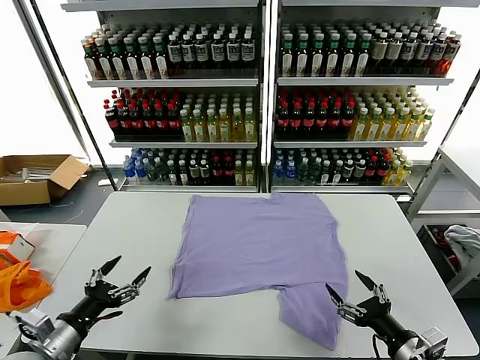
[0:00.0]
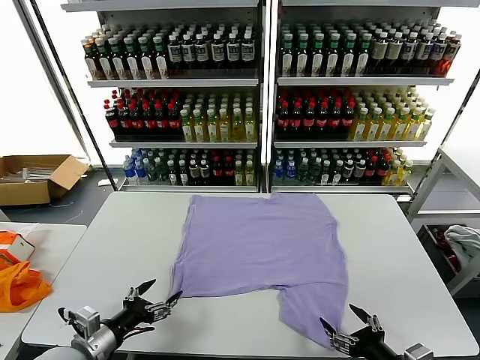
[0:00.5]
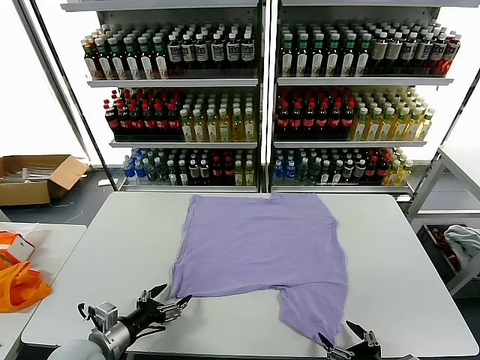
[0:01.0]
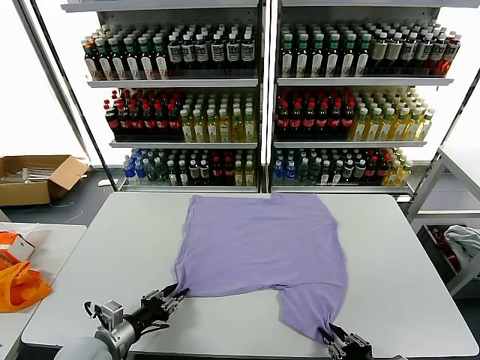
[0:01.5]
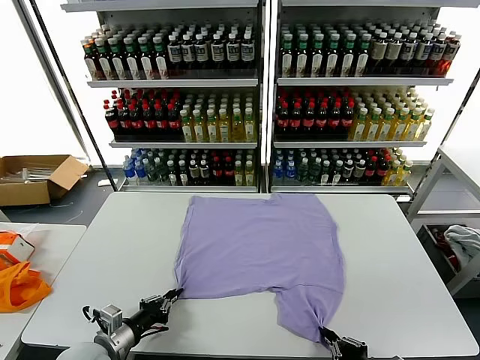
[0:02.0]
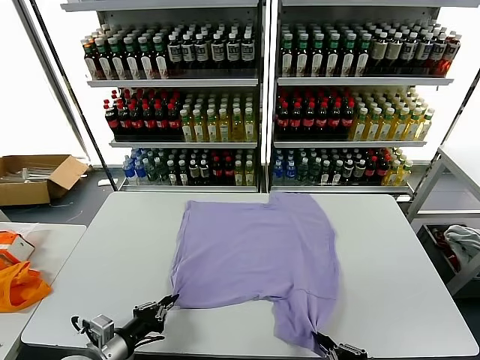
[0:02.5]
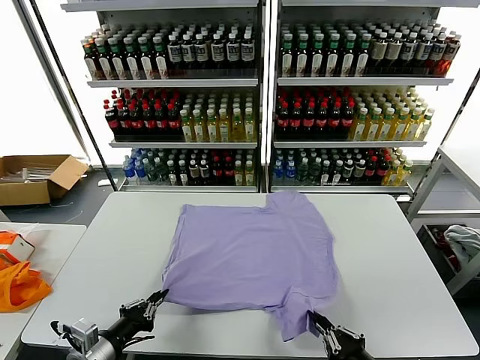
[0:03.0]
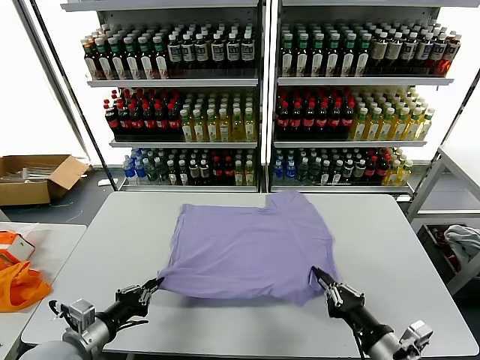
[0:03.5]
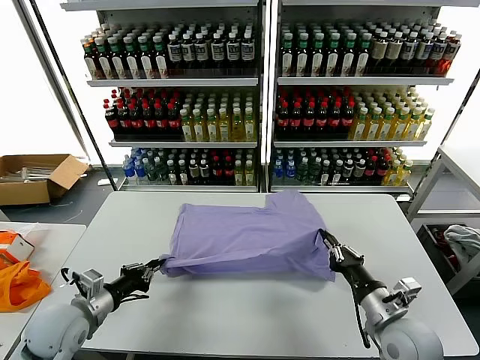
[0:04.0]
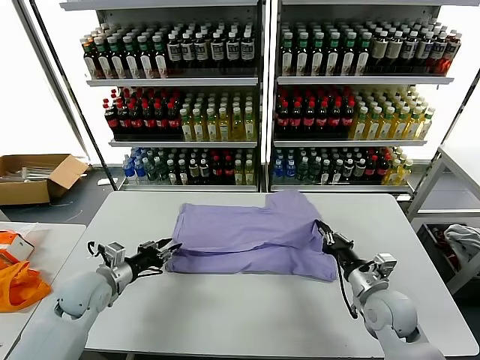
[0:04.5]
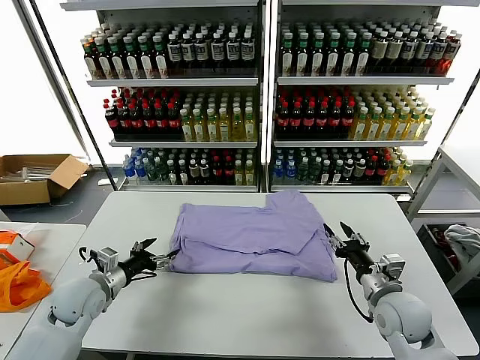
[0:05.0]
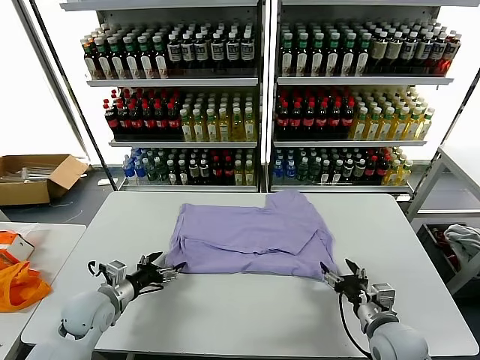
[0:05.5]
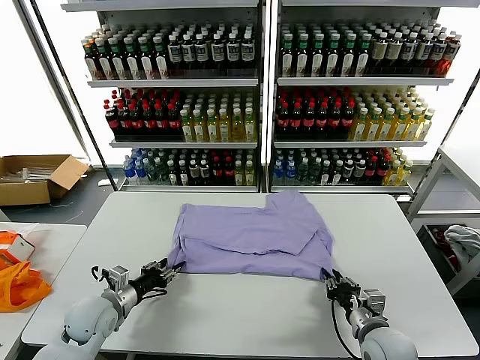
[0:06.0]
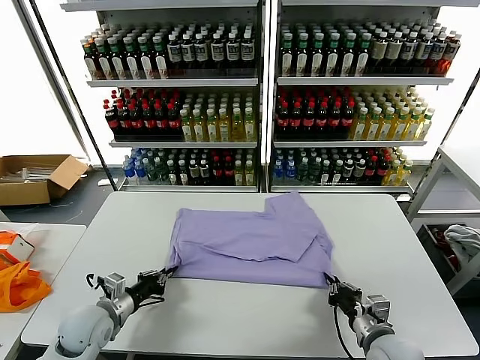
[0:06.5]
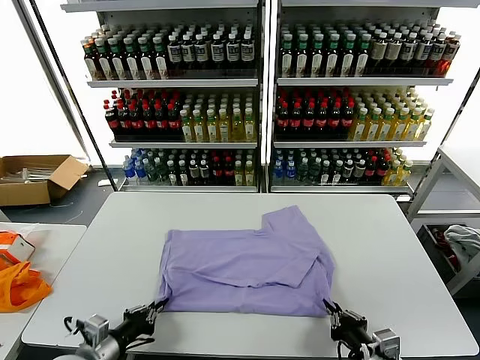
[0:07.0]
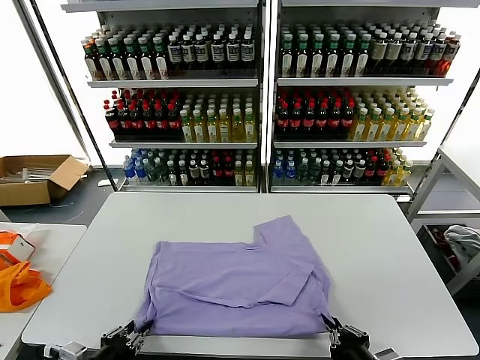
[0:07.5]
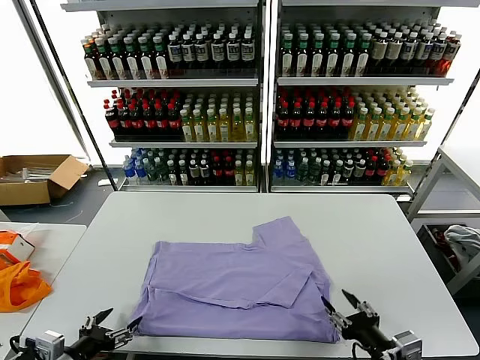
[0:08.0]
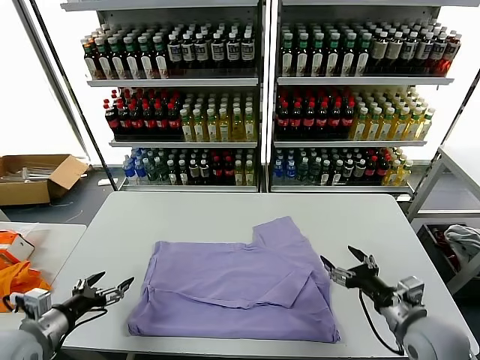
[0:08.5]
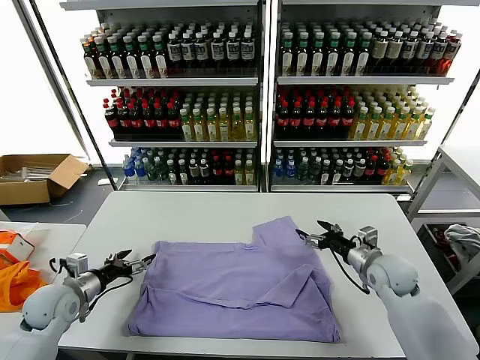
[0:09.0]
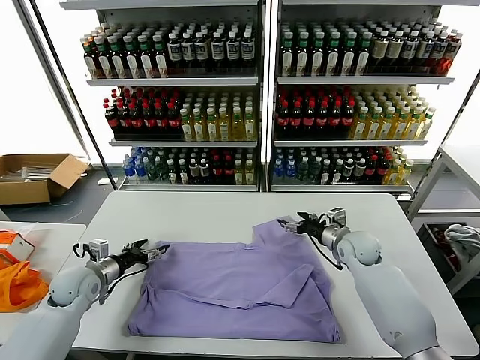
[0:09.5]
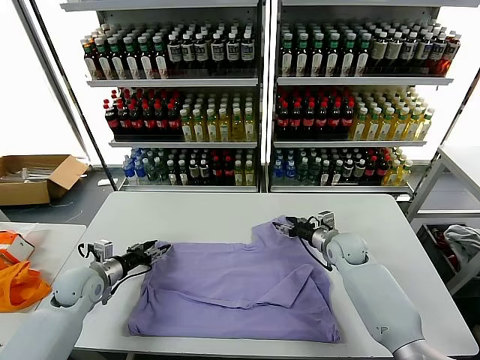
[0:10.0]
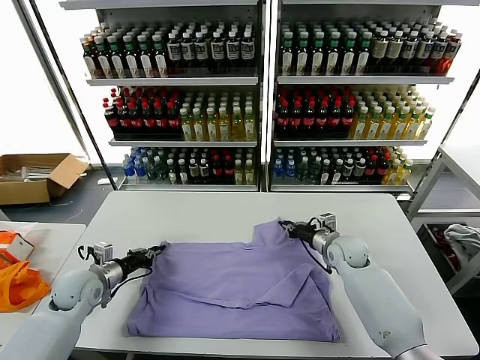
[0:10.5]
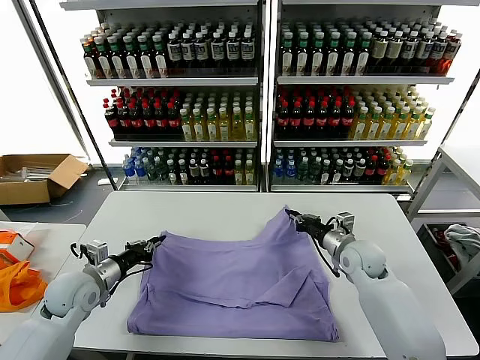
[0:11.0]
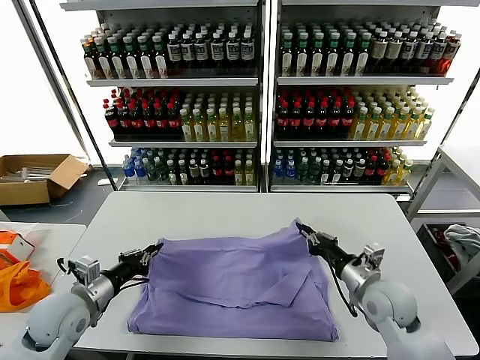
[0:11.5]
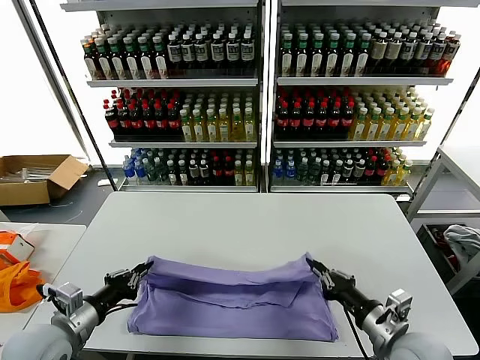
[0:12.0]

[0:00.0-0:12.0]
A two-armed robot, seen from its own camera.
Task of the whole recording: fold and organize the clothes.
Step, 0:00.0 to 0:01.5: use both grippers simultaneously to clamp the lower edge of the clothing fabric.
Step, 0:02.0 to 0:04.5: use both grippers to drag the lower edge of the fabric forward and fold it over the upper edge.
Step, 0:05.0 to 0:08.0: Drag the clothes downward with both gripper.
Step, 0:08.5 to 0:10.5: use both grippers simultaneously to clamp the upper edge of the clothing fabric.
0:02.0 to 0:04.0: The right gripper goes roughly 15 cm forward. Meanwhile the left gripper shifts about 10 cm upward and forward.
0:04.0 to 0:06.0: Both grippers move downward, approximately 5 cm. The right gripper opens and closes again. The left gripper opens.
0:06.0 to 0:08.0: The right gripper heads backward and upward, covering approximately 10 cm, and opens its fingers. The left gripper goes roughly 20 cm backward and upward, and opens up.
0:08.0 to 0:10.0: The two grippers go approximately 30 cm forward. The left gripper closes up.
0:10.0 to 0:12.0: The left gripper goes approximately 15 cm backward and upward, and closes up; the right gripper is displaced backward by about 30 cm, and closes.

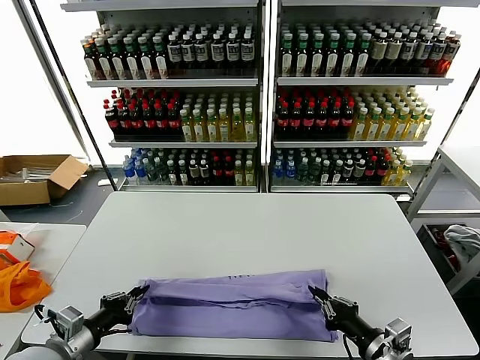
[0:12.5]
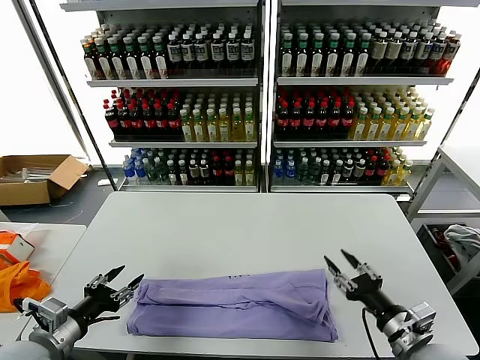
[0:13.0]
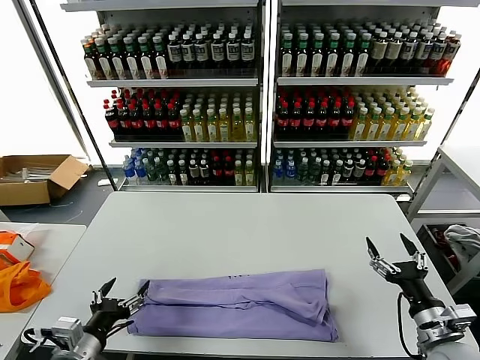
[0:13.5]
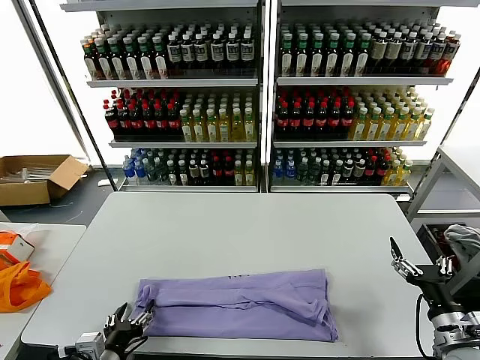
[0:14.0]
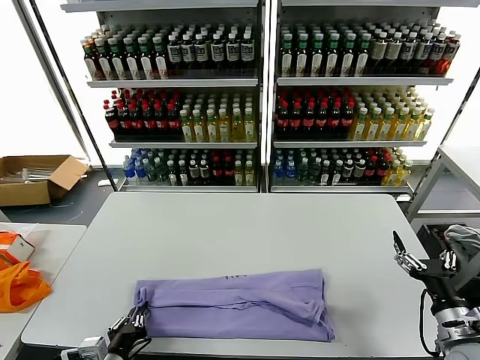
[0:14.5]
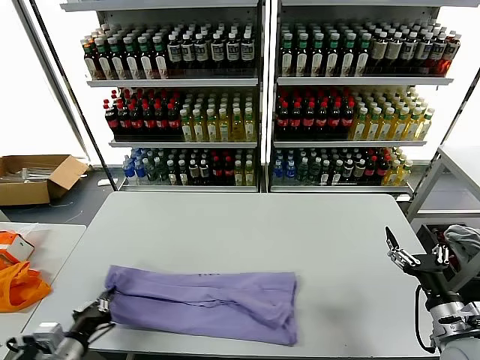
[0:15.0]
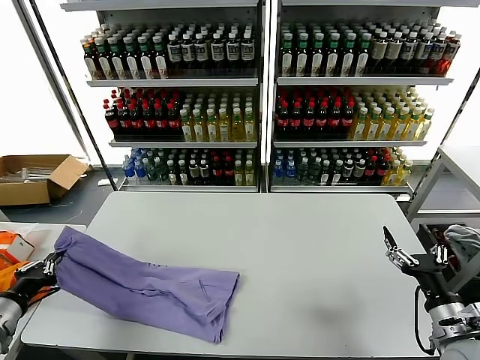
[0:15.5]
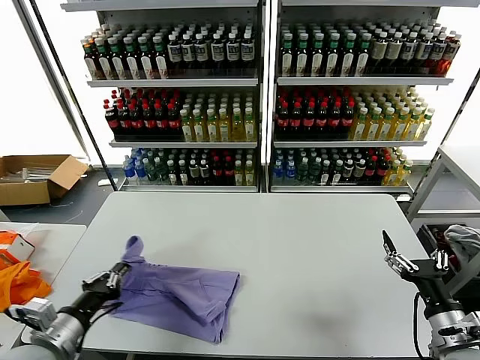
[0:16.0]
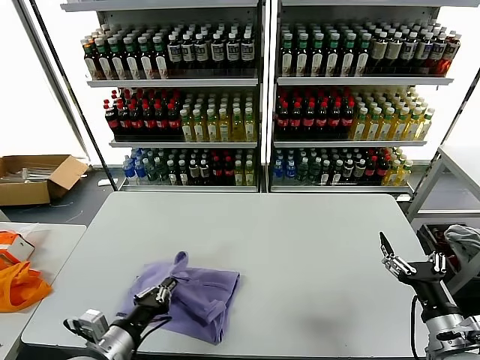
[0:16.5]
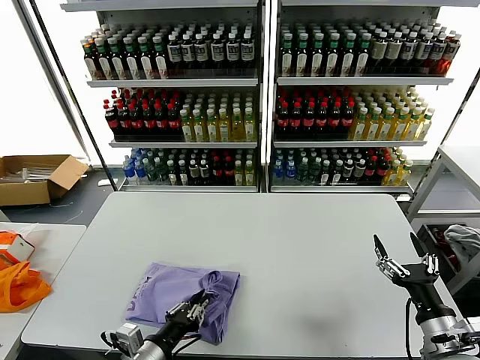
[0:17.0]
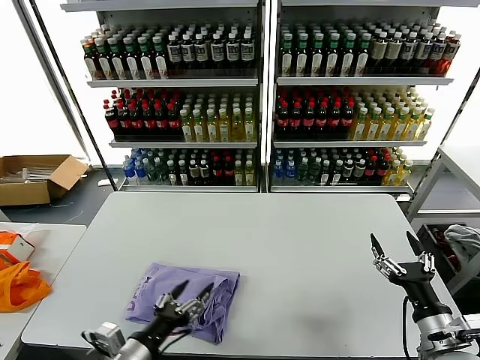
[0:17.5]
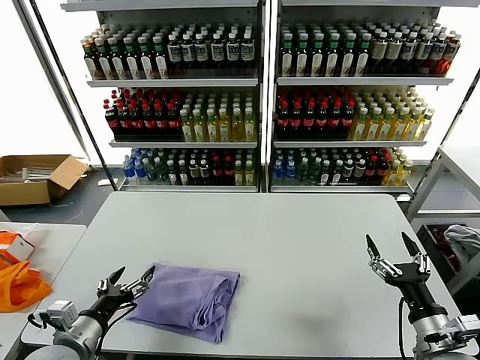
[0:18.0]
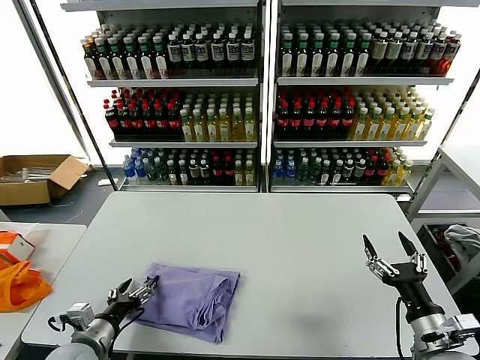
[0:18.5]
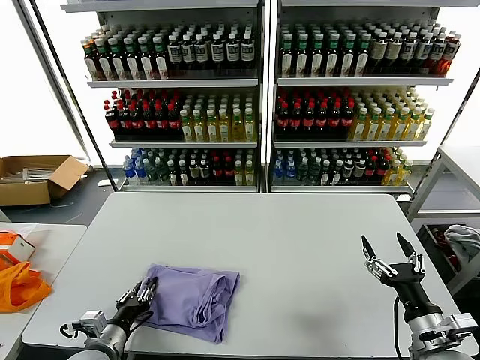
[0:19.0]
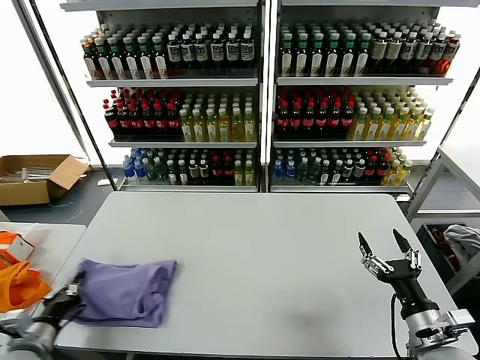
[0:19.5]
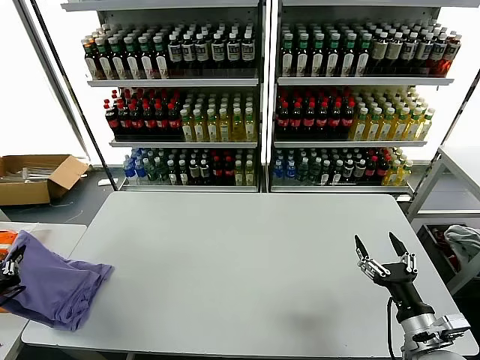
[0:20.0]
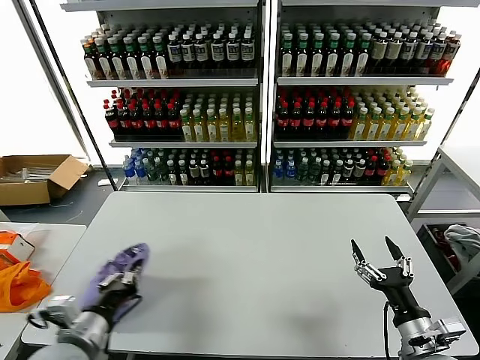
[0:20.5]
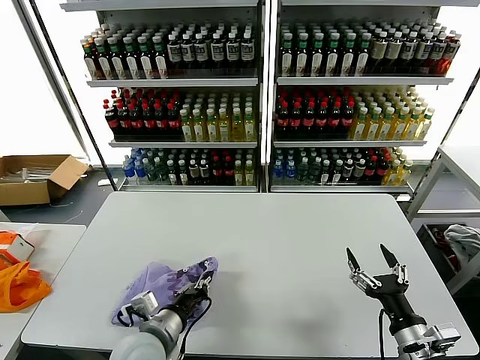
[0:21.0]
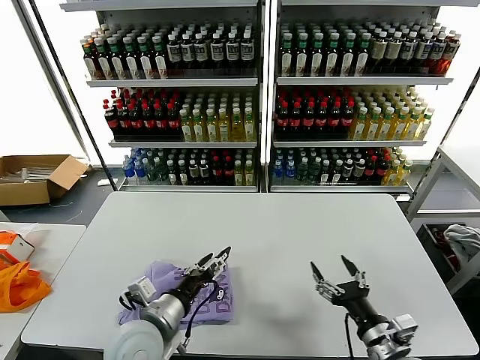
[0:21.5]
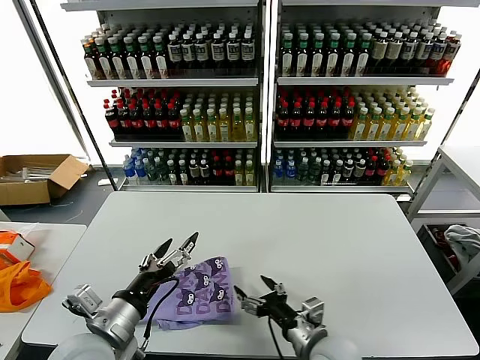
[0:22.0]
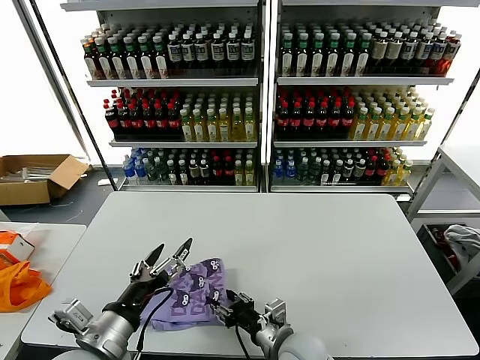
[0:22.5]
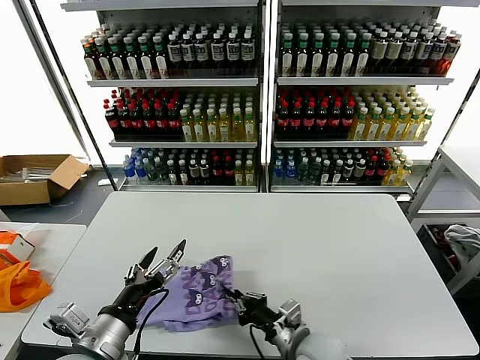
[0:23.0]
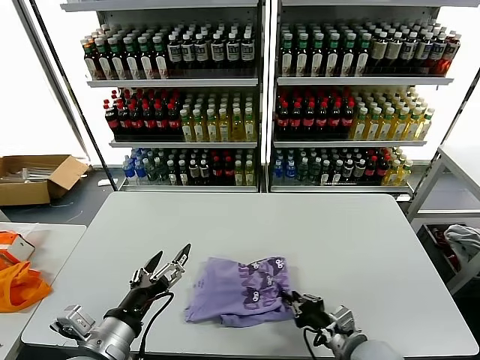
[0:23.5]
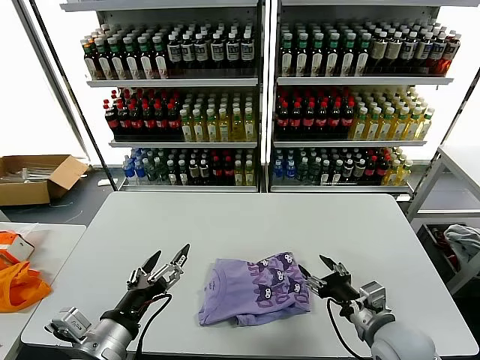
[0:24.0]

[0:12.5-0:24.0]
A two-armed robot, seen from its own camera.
Task of the whole recording: fold and organize the clothes.
Step, 0:13.0 to 0:14.5: use the left gripper to clamp the left edge of the fabric.
Step, 0:15.0 to 0:17.0: use the left gripper to drag the left edge of the fabric to the left and folds it over the right edge.
Step, 0:17.5 to 0:21.0: Flip the folded clothes over with left gripper.
0:12.5 to 0:14.5: The left gripper moves to the right and downward, approximately 10 cm, and opens, then closes once more. Meanwhile the right gripper goes some 10 cm to the right, and opens.
0:14.5 to 0:16.5: The left gripper travels upward by roughly 5 cm, and travels to the left and back again, roughly 20 cm each way.
0:16.5 to 0:18.5: The left gripper is displaced to the left and downward by roughly 10 cm, and opens its fingers.
0:18.5 to 0:20.0: The left gripper shifts approximately 20 cm to the left and upward, and closes up.
0:20.0 to 0:22.0: The left gripper heads to the right, covering some 25 cm, and opens; the right gripper shifts roughly 15 cm to the left.
0:22.0 to 0:24.0: The right gripper heads to the right, covering approximately 10 cm, and closes, then opens again.

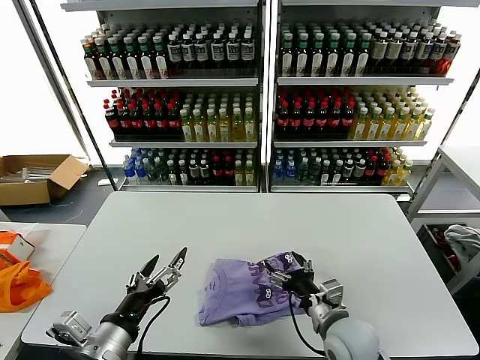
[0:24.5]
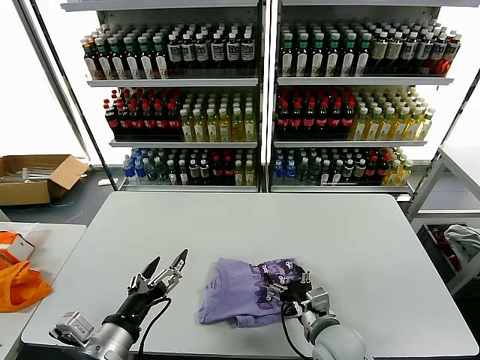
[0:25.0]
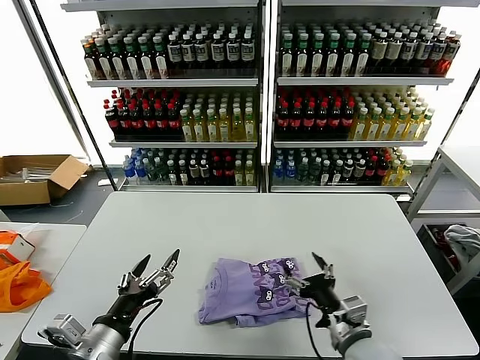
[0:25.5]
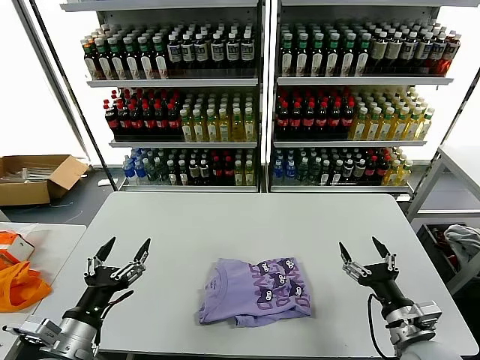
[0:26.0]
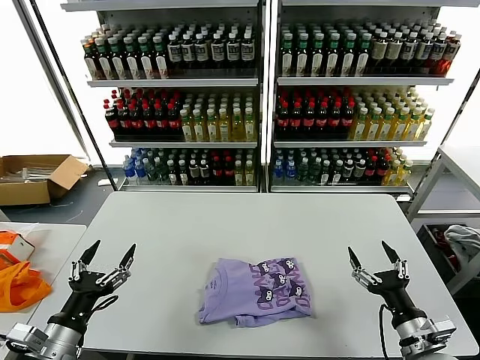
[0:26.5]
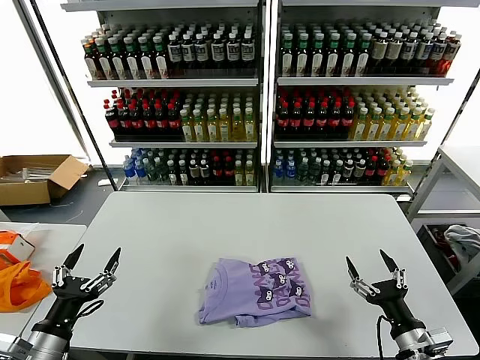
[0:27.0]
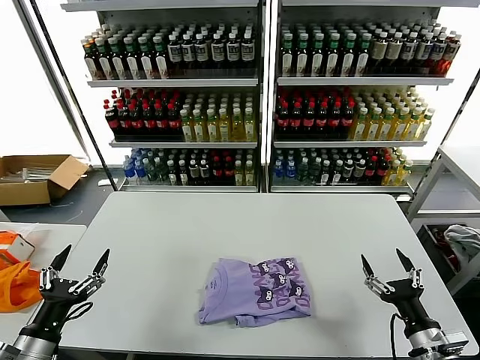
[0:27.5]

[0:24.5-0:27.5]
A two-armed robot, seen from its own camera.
Task of the whole recording: fold and organize the clothes.
0:24.5 to 0:26.0: The left gripper moves to the left, roughly 5 cm. Meanwhile the right gripper is displaced to the right by approximately 10 cm.
0:26.0 to 0:27.5: The right gripper ends up some 5 cm from where it was, while the left gripper shifts some 10 cm to the left.
